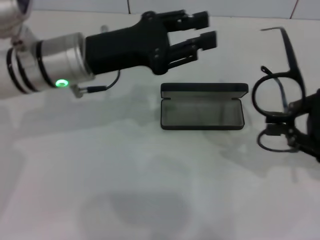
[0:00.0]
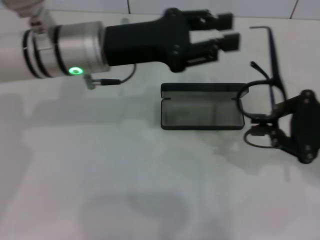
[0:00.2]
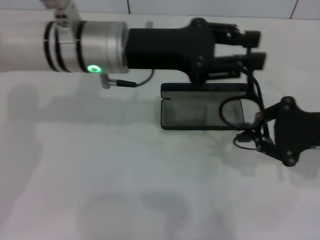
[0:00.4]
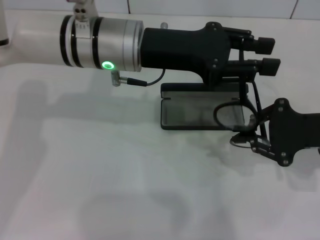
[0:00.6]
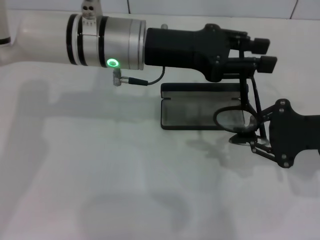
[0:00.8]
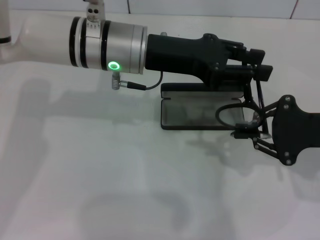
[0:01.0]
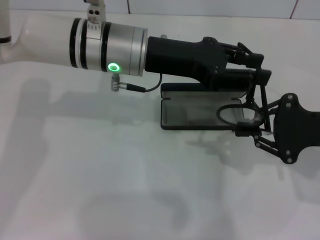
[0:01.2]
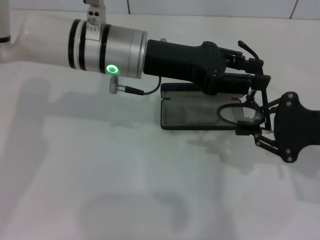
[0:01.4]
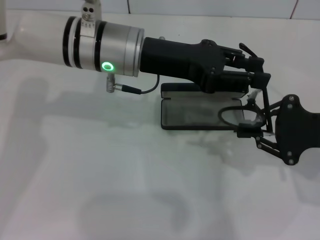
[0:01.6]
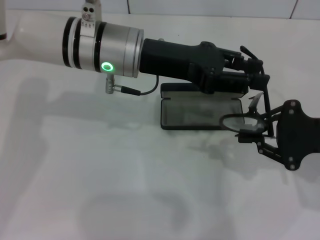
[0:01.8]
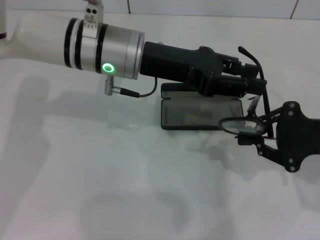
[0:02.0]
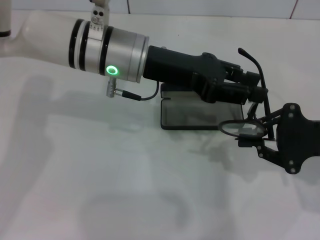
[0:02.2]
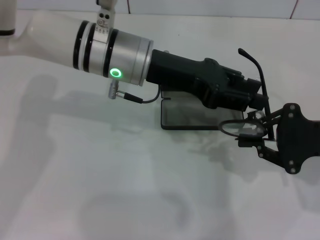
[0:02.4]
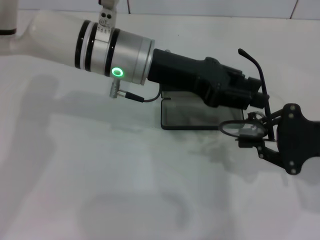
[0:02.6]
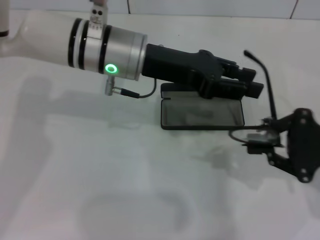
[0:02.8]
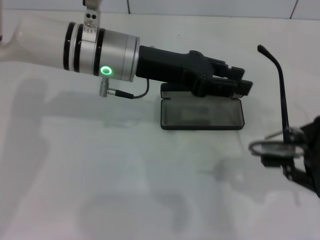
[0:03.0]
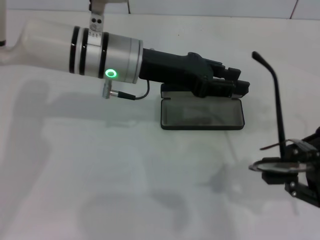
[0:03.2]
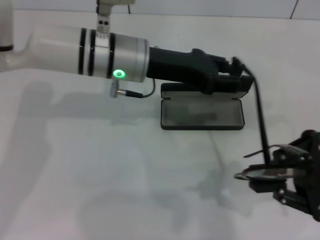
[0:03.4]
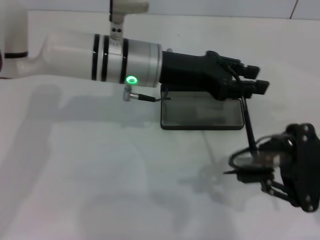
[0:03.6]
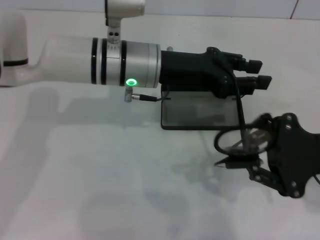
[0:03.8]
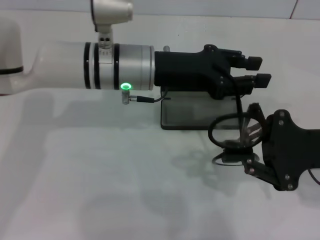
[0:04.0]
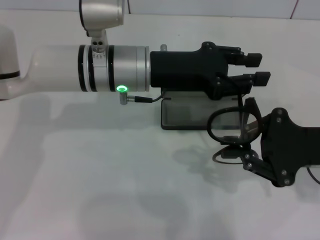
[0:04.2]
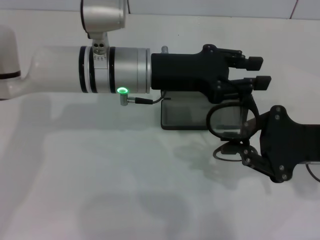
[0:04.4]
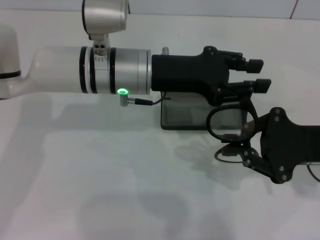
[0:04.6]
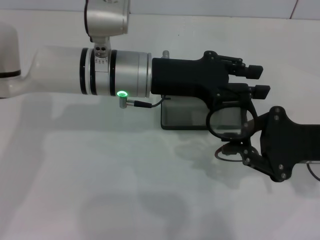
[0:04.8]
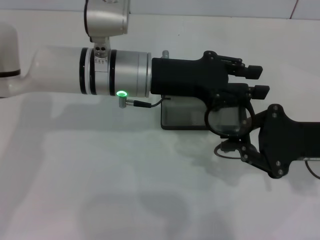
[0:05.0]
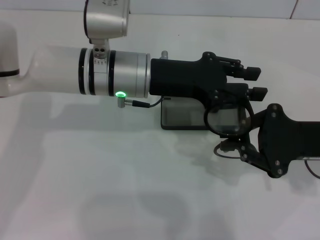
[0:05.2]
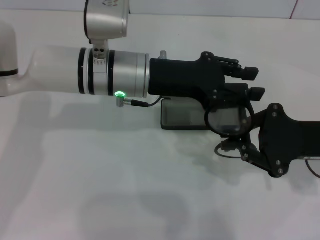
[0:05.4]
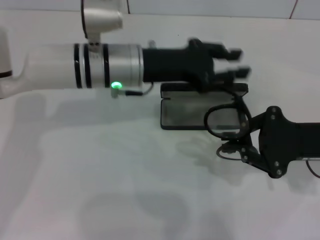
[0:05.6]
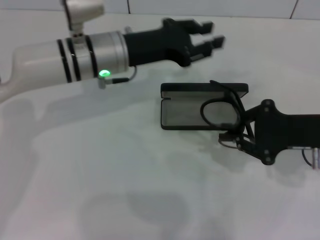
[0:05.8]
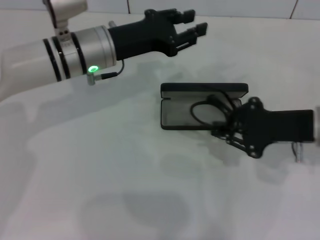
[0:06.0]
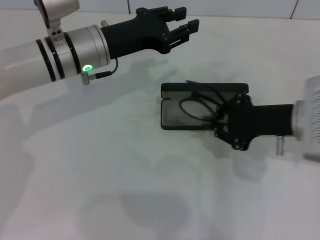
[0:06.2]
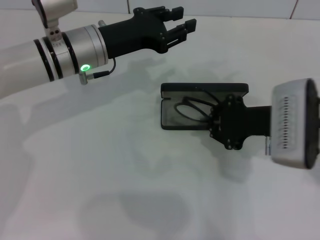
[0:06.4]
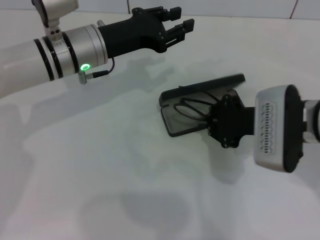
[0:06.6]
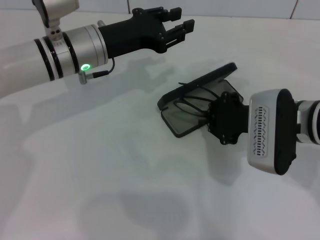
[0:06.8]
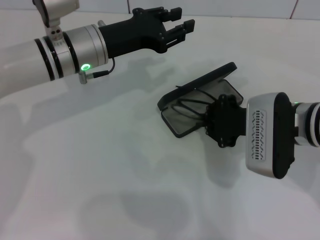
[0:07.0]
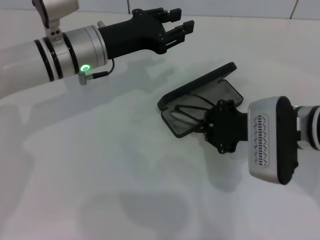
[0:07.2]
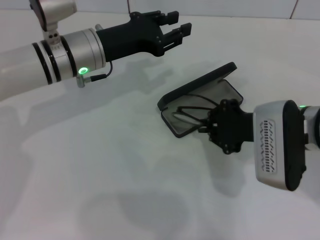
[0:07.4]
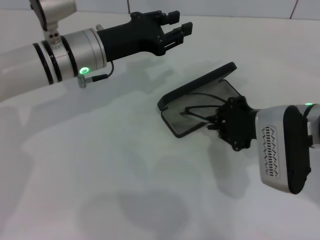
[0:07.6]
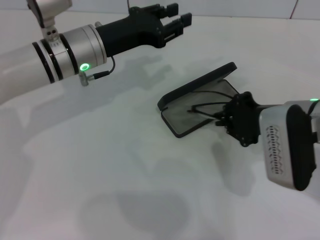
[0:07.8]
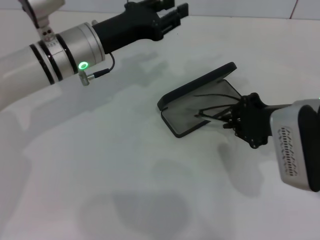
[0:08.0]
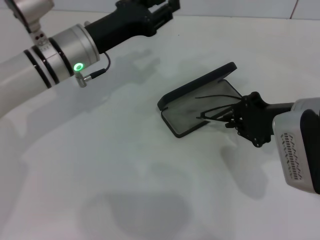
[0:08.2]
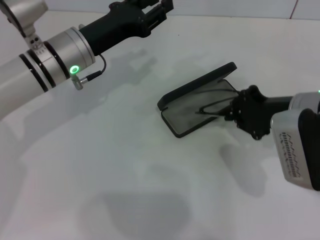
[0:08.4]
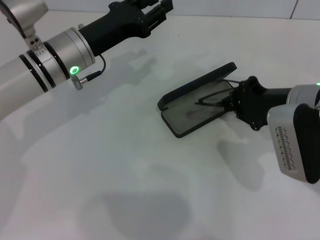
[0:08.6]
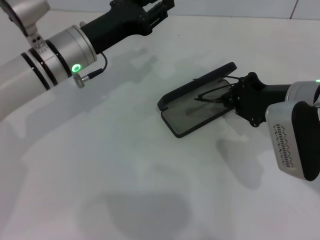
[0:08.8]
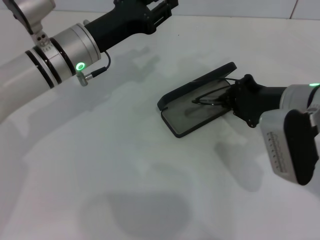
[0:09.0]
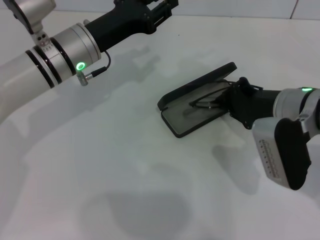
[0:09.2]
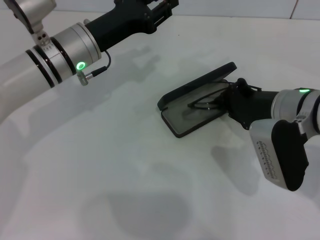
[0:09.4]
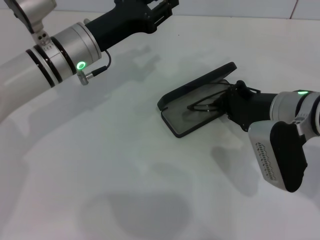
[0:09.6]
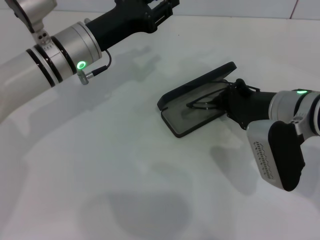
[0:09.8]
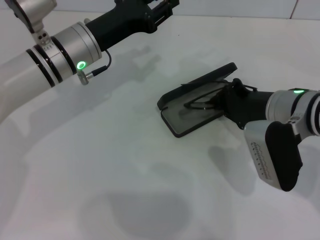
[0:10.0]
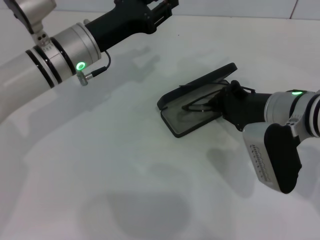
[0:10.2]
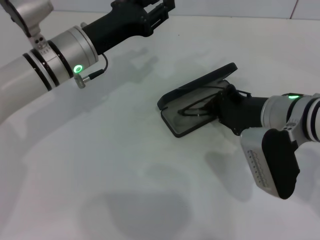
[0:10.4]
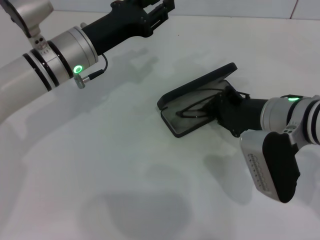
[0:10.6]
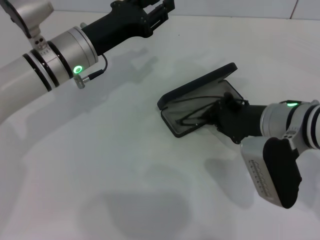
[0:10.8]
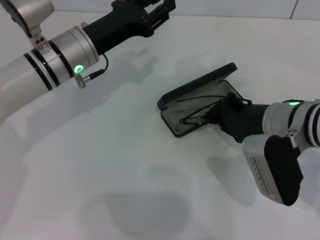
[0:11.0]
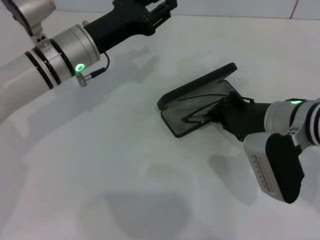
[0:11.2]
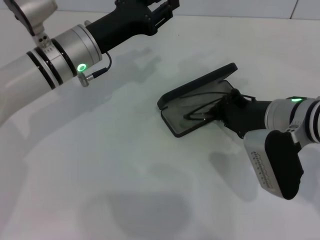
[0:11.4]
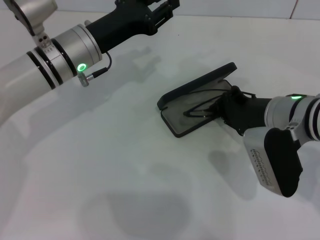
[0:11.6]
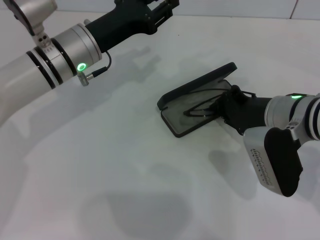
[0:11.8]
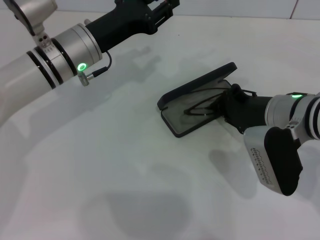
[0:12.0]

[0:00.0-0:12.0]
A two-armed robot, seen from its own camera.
Step, 0:00.0 to 0:05.0: Fold the frame with your left hand.
0:00.0 to 0:01.6: The left gripper goes approximately 5 cm to the right.
0:01.6 to 0:03.0: The grippers stay close to where they were, moving slightly.
0:03.0 to 0:04.4: The right gripper changes place by roughly 5 cm.
0:04.4 to 0:06.0: The left gripper heads to the left, covering some 5 cm.
0:06.0 to 0:07.6: The right gripper moves to the left, roughly 5 cm.
0:07.6 to 0:09.0: The grippers make only small movements.
0:09.0 to 0:10.4: The grippers move only a little.
0:10.4 to 0:12.0: Both grippers stay about where they are.

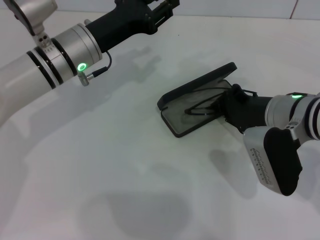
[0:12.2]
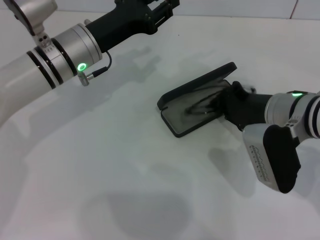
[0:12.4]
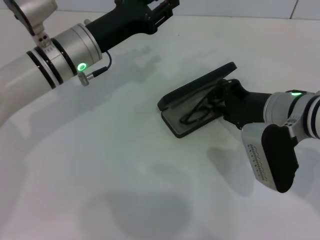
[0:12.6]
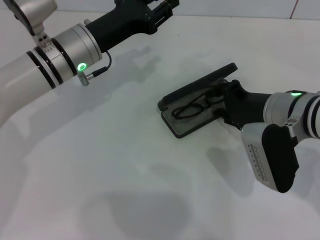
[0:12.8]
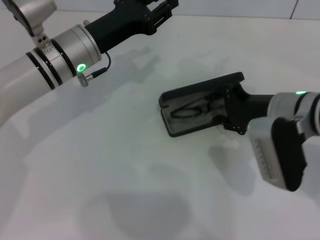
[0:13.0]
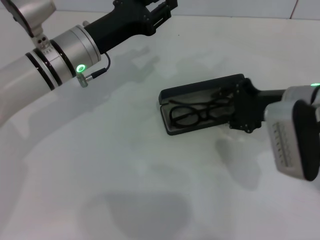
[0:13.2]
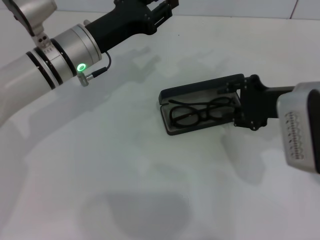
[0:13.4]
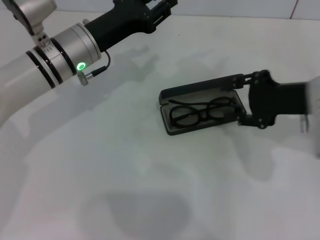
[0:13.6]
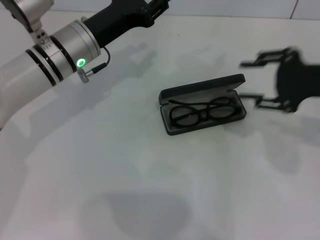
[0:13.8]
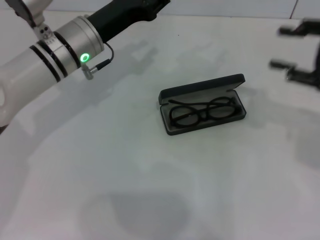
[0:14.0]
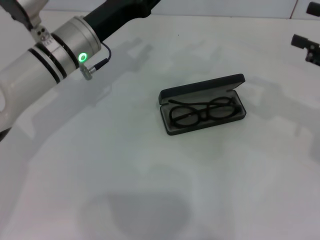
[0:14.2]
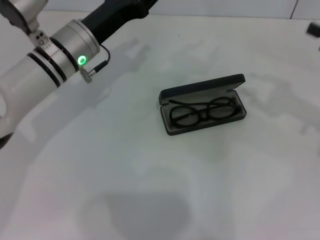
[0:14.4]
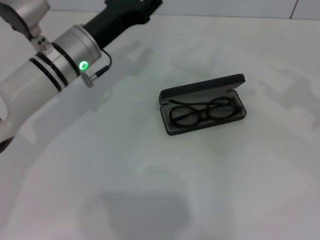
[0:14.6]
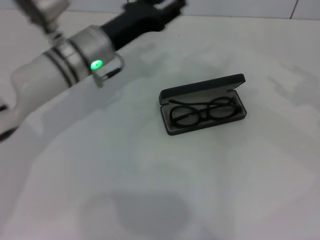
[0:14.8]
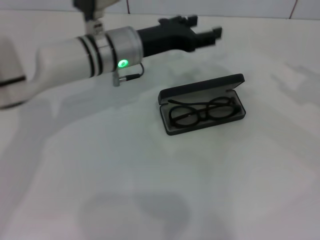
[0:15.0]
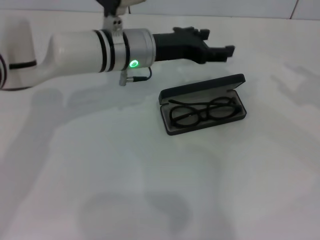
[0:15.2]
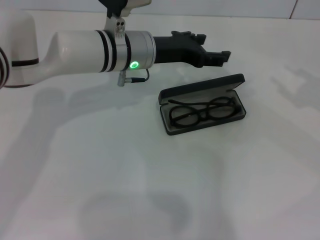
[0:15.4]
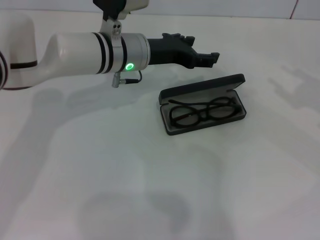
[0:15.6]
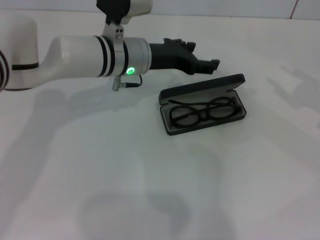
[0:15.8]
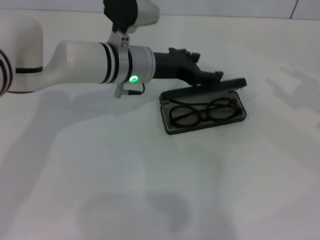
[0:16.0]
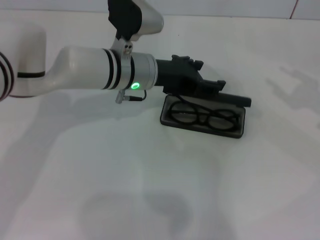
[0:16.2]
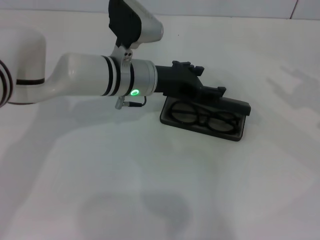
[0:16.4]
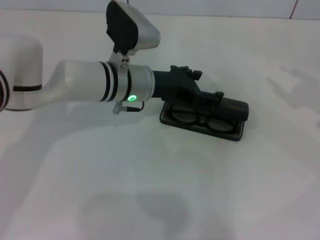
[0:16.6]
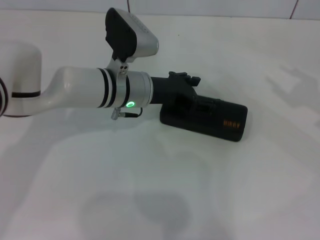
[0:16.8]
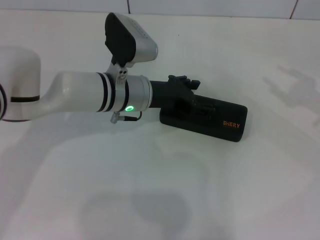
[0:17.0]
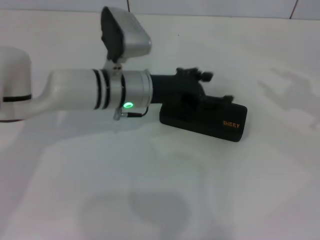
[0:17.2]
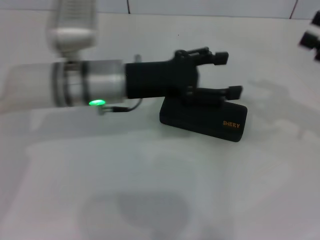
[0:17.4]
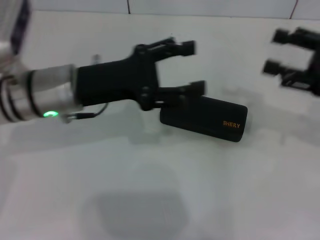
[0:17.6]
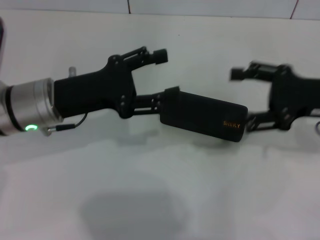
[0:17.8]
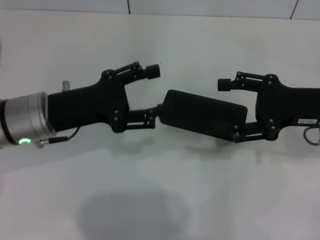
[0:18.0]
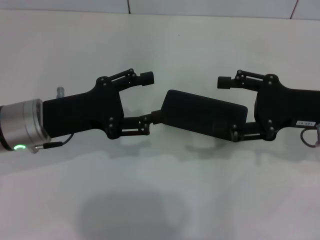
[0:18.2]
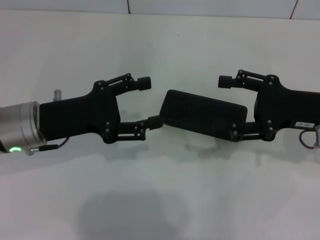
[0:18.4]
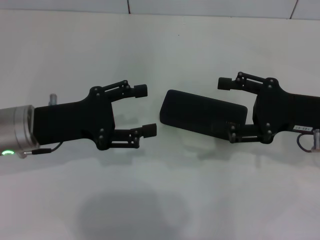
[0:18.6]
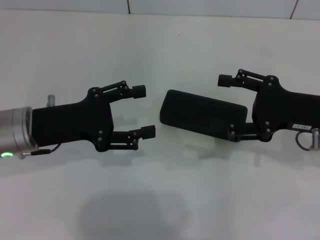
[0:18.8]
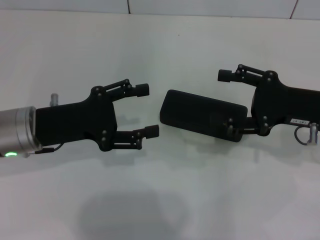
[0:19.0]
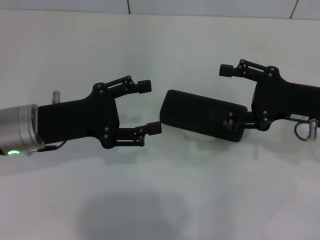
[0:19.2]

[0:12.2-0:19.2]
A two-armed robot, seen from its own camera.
Step, 0:13.2 to 0:16.6: Close the glasses case with your left hand.
0:12.2 to 0:13.6: The right gripper shifts roughly 5 cm to the right and upward, and opens.
0:13.6 to 0:15.0: The right gripper is displaced to the right by about 15 cm. Meanwhile the left gripper travels to the right by roughly 5 cm, and opens up.
0:15.0 to 0:16.4: The grippers make only small movements.
0:16.4 to 0:17.8: The right gripper heads to the left, covering roughly 10 cm; the left gripper heads to the left and backward, covering some 15 cm.
0:17.8 to 0:19.2: There are only small adjustments of the grippers.

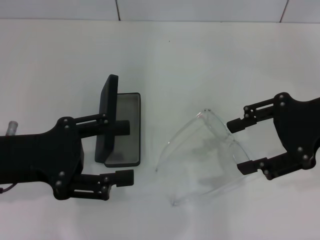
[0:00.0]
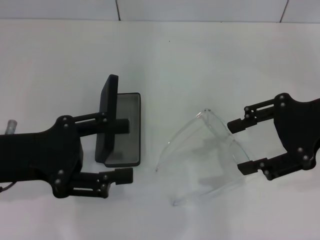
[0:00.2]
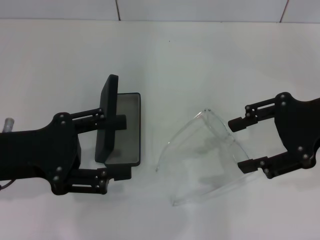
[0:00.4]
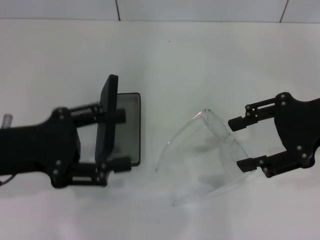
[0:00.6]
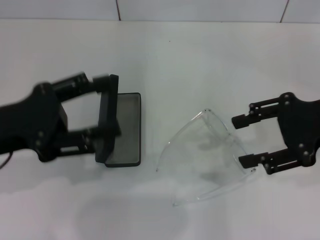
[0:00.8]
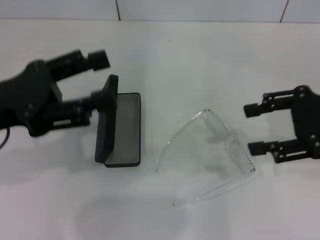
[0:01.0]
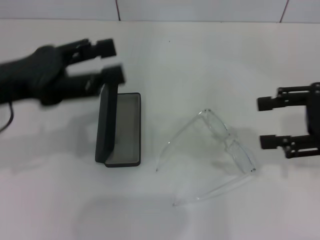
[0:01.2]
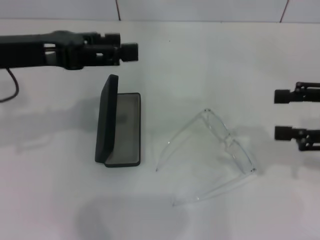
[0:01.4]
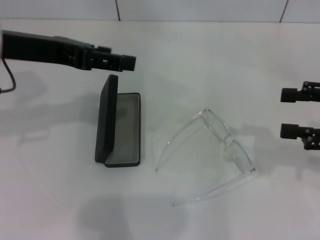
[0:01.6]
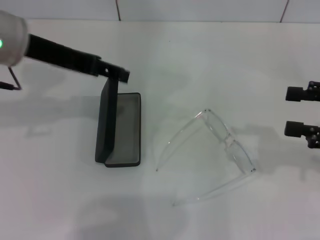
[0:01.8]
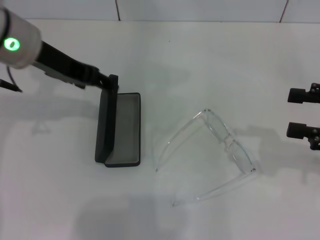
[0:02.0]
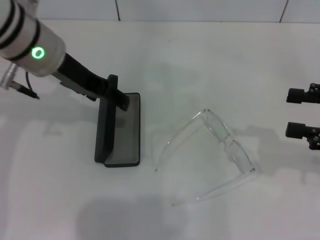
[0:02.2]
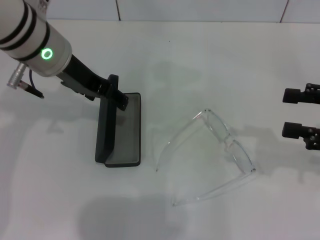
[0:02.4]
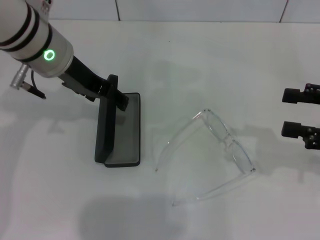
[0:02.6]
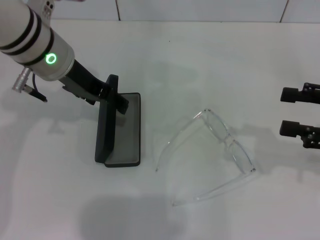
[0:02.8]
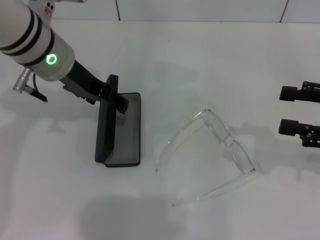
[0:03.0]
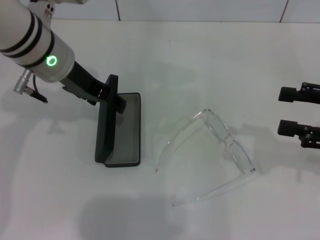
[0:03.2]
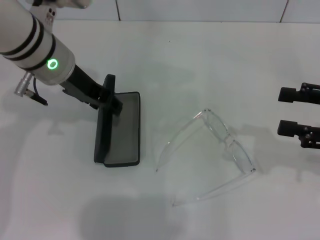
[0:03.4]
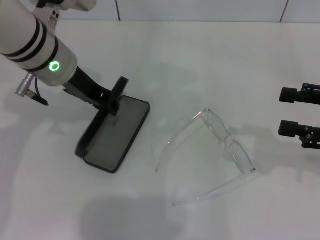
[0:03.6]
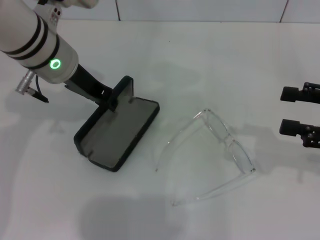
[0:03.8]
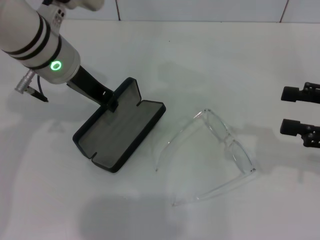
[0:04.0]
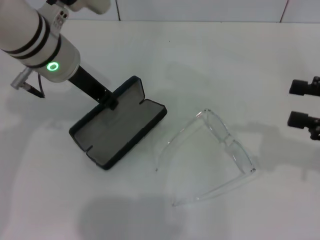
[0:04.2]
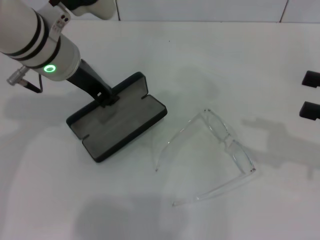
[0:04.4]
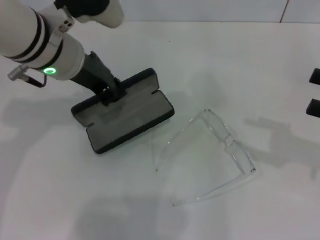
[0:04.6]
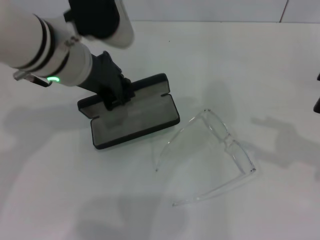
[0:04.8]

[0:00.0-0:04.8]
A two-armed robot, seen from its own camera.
Step, 0:00.0 to 0:03.4: Grab the glasses case with your left hand.
0:00.0 to 0:01.6: The right gripper shifts approximately 10 cm to the right. The left gripper moves forward and upward, approximately 15 cm.
0:01.6 to 0:03.2: The left gripper goes some 10 cm to the right and downward.
0:03.2 to 0:04.8: The left gripper closes its fingers.
